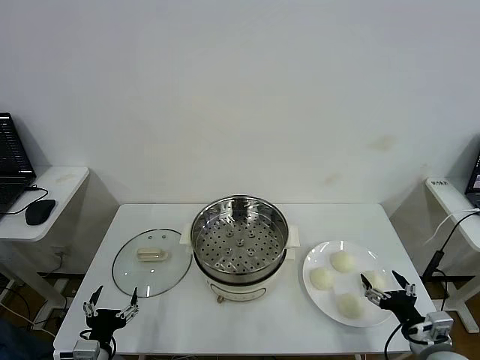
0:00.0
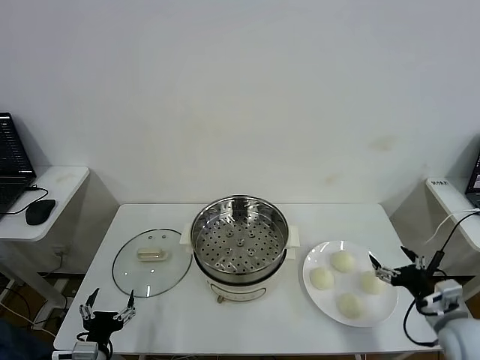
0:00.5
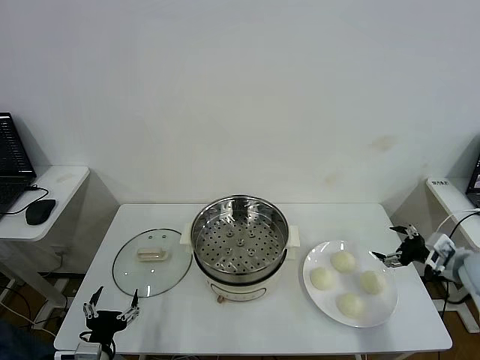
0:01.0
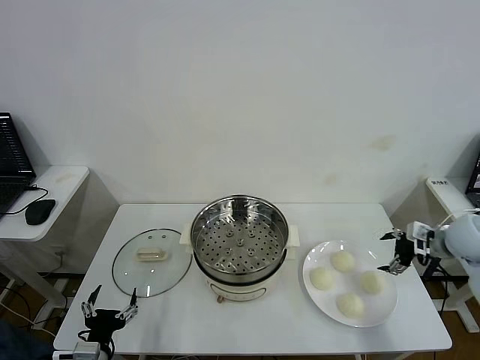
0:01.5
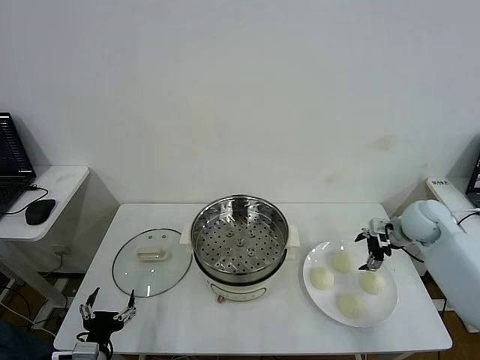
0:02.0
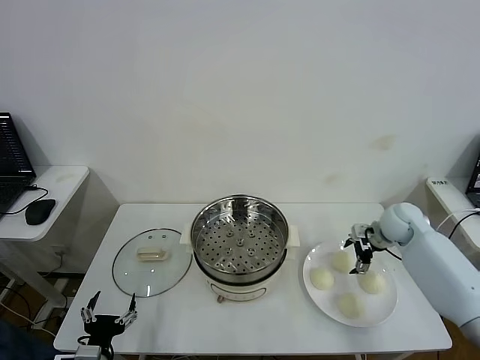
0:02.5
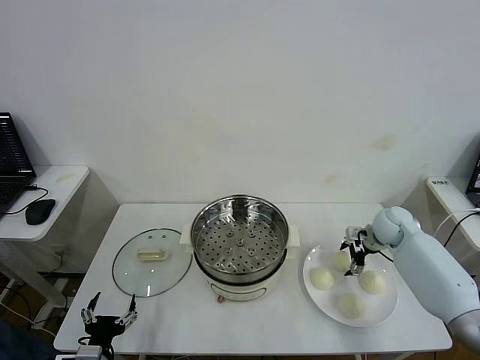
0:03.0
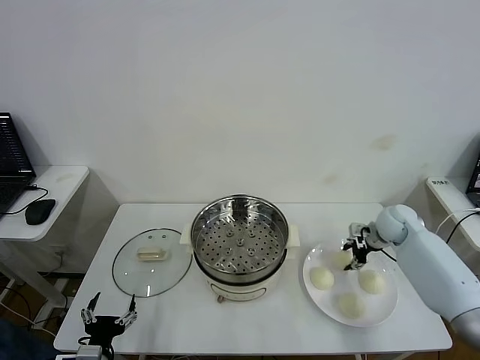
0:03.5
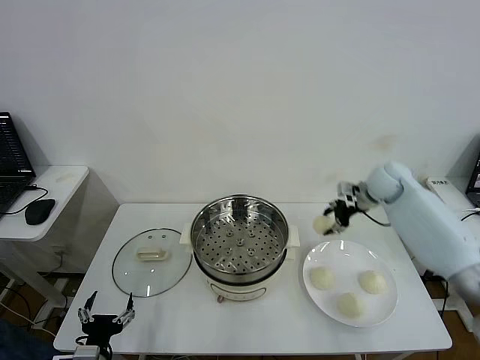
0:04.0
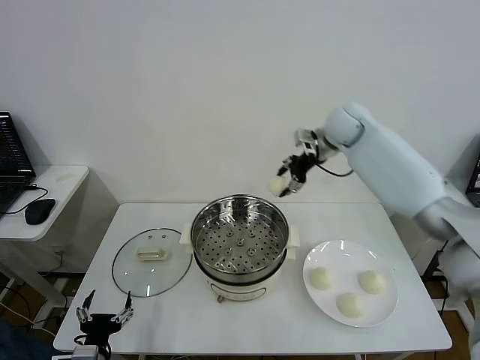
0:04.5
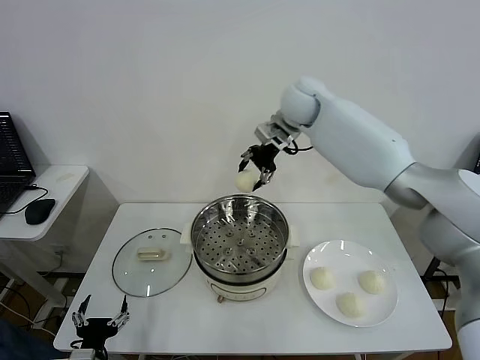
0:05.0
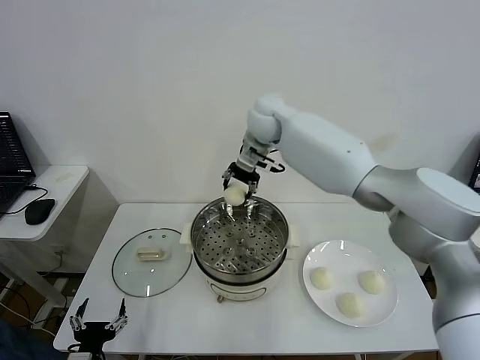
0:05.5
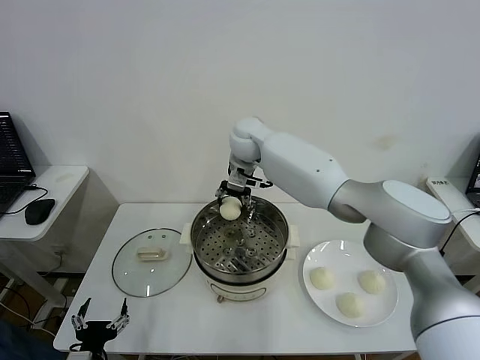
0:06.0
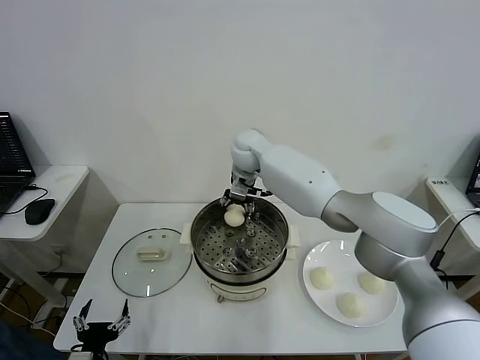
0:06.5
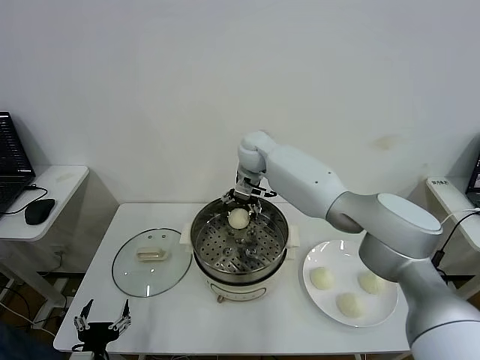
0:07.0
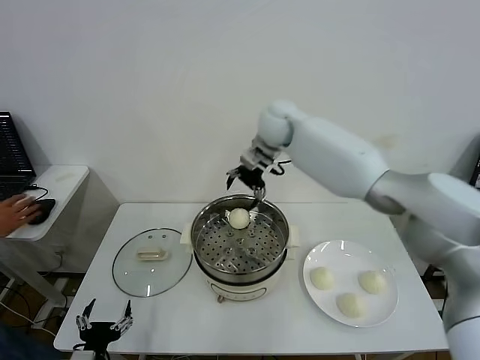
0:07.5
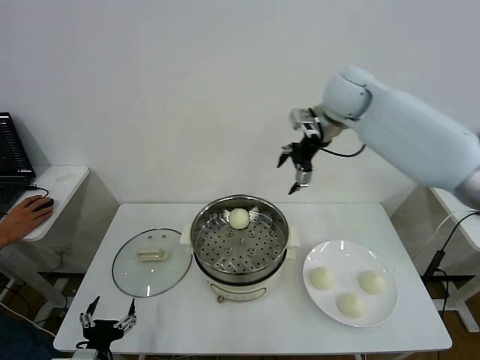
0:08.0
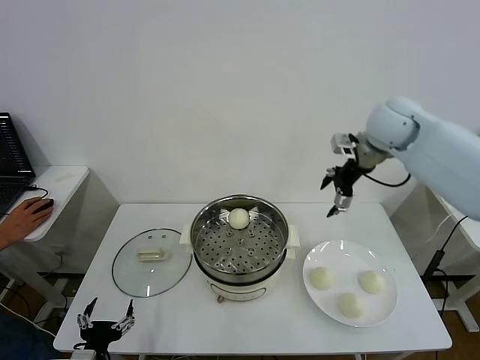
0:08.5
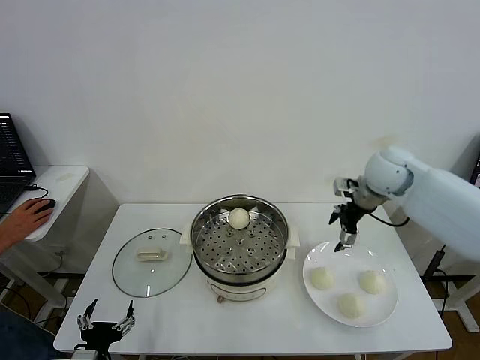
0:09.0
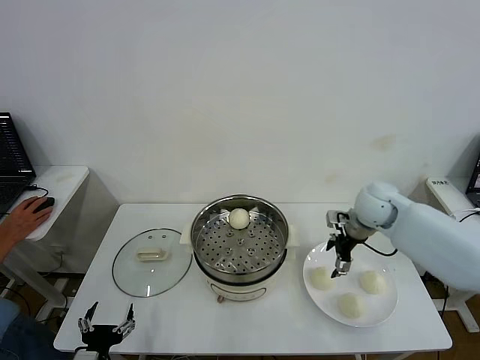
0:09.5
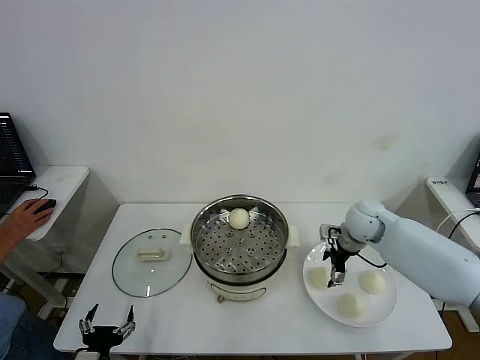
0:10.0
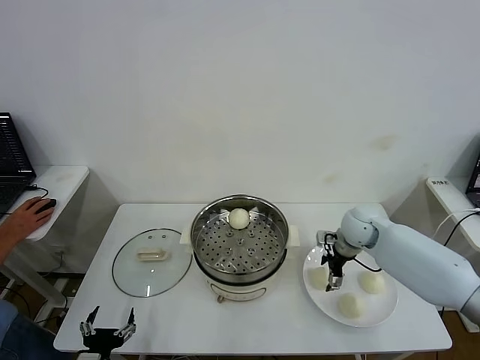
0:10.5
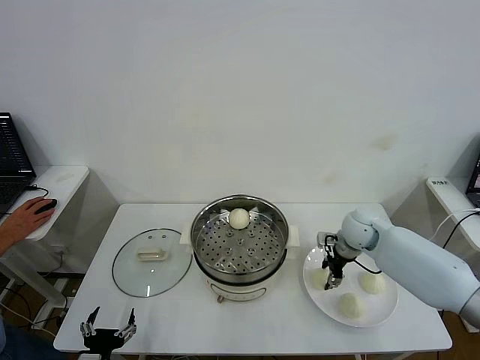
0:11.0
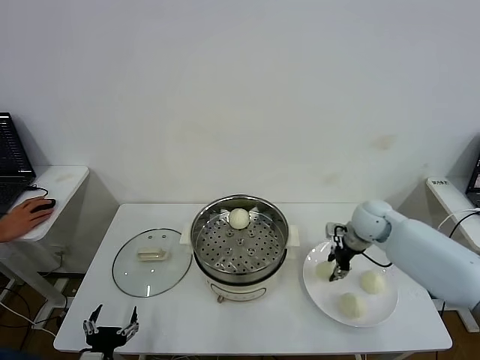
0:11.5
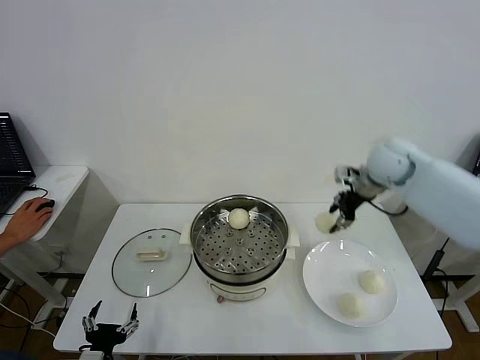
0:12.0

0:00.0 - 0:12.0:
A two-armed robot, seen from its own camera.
Step, 0:00.0 - 0:03.0: Grasp the baozi in the plate with right gripper.
Step, 0:03.5 - 0:06.5: Place the baozi on the steamer with right gripper.
Step, 0:07.0 - 0:10.5: Grasp the baozi in the plate with right gripper.
0:02.0 - 0:04.0: The right gripper heads forward, upward and to the left, covering roughly 15 cm, and closes its fingers.
0:04.0 - 0:06.0: The right gripper travels to the left by roughly 30 cm.
0:06.0 - 0:08.0: The right gripper goes roughly 25 cm to the right and upward, and opens.
0:08.0 - 0:10.0: The right gripper heads downward, covering about 25 cm.
0:10.0 - 0:12.0: The right gripper is displaced upward by about 20 cm, and closes.

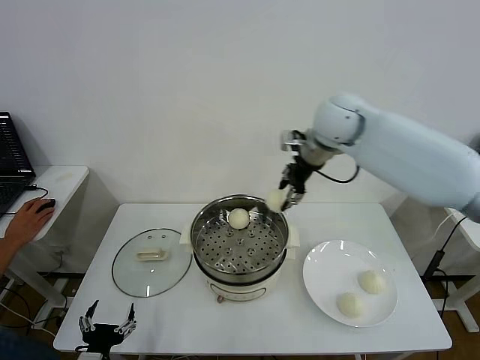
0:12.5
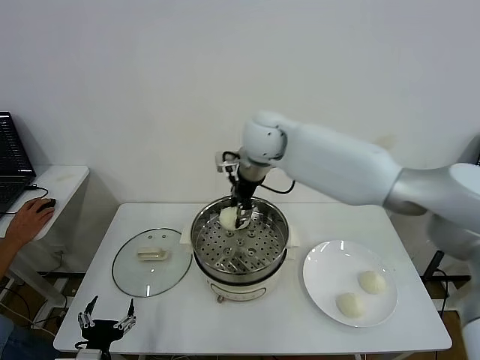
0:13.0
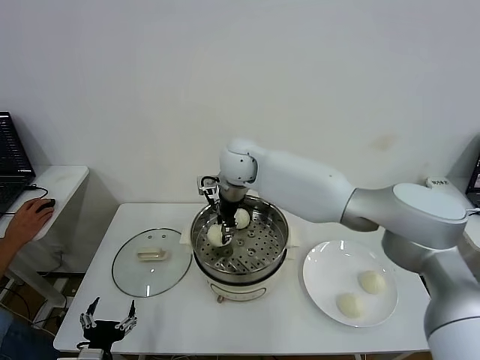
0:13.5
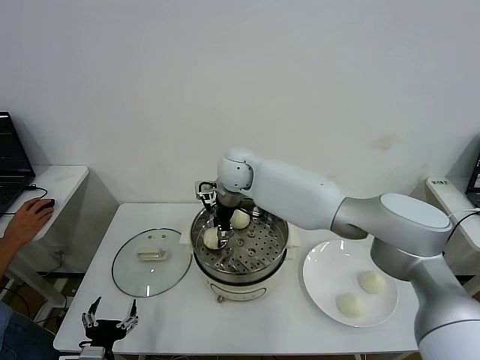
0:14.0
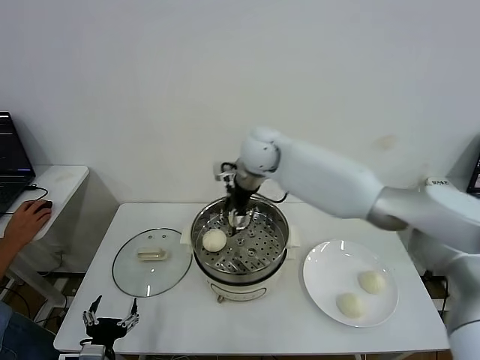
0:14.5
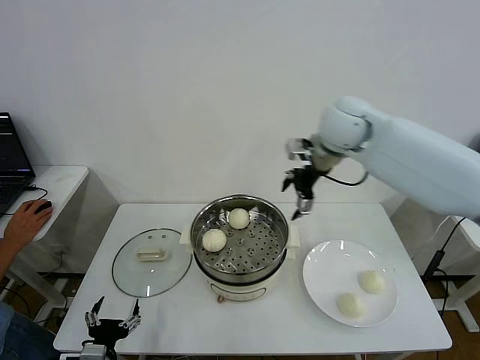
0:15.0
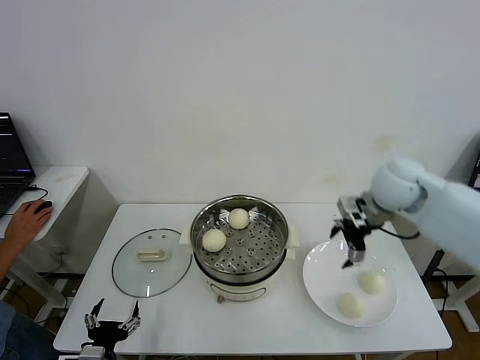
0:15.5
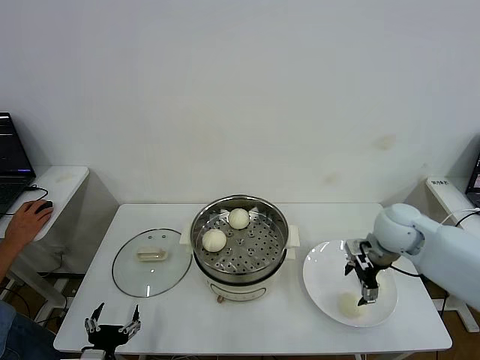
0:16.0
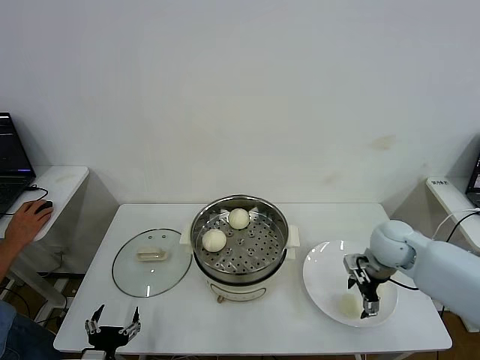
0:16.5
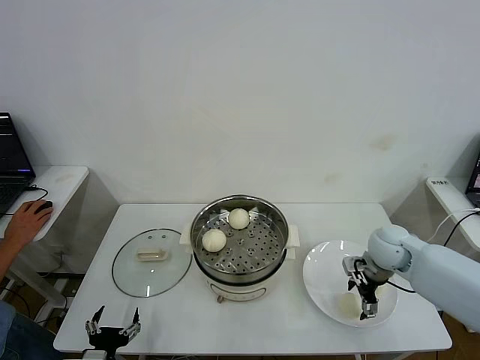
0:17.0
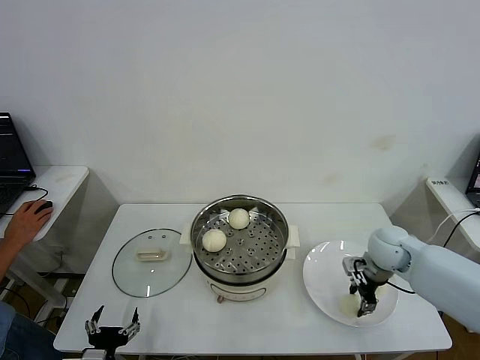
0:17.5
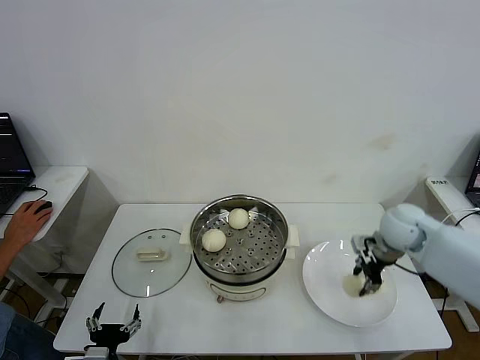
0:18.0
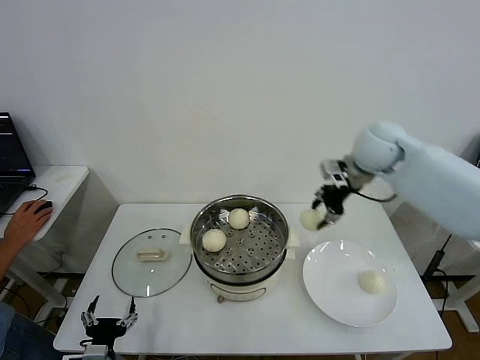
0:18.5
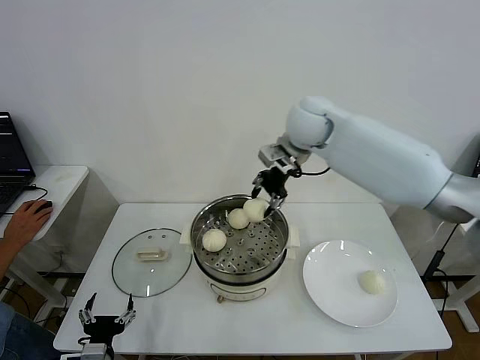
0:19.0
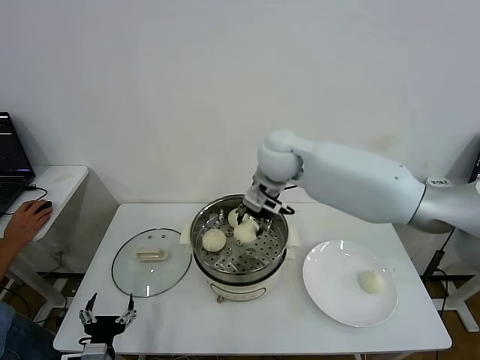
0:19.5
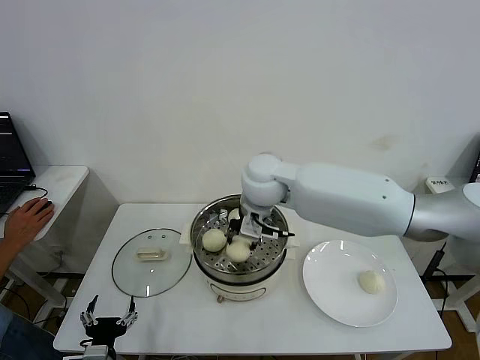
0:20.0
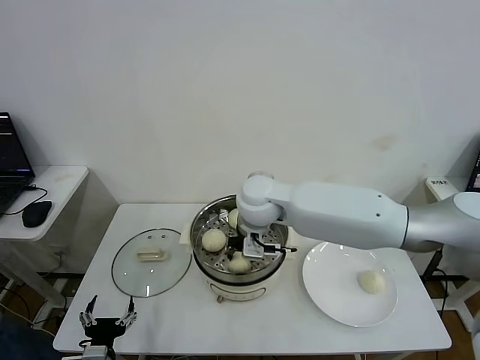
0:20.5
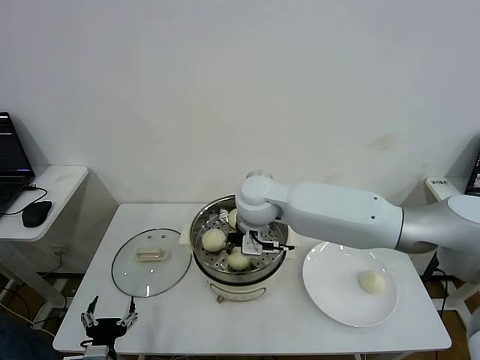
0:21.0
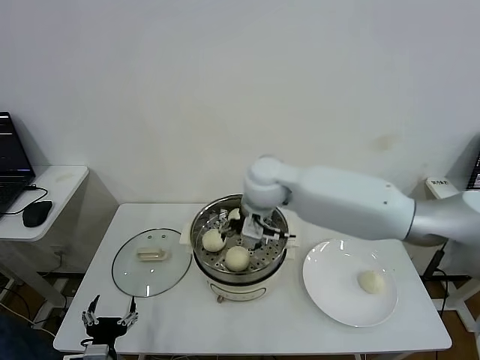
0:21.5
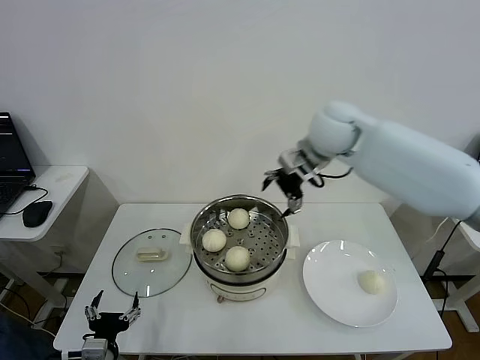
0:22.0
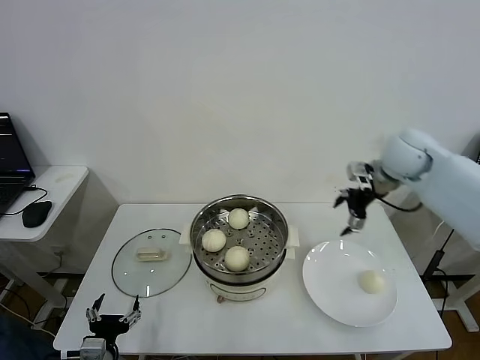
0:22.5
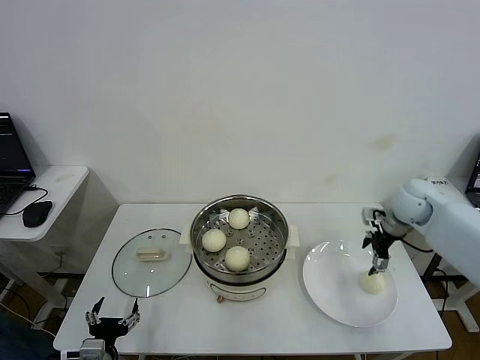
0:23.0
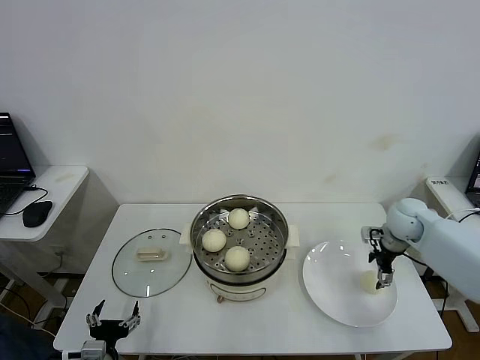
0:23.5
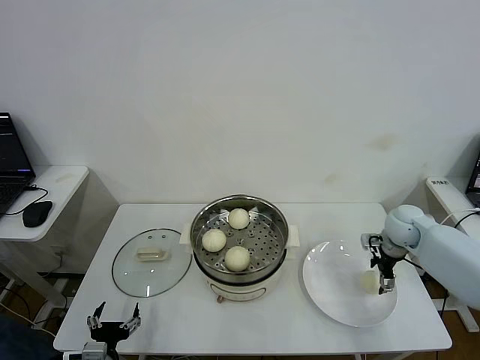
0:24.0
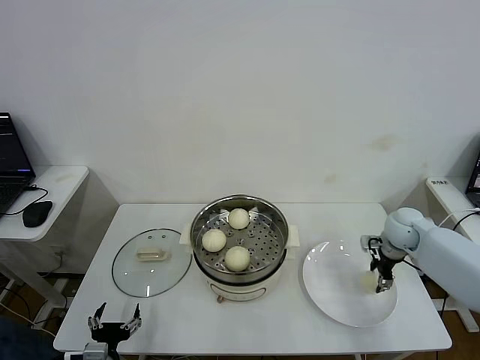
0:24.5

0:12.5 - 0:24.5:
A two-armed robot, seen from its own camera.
Step, 0:12.5 - 0:14.0: Place the baozi on the steamer with right gripper.
Step, 0:14.5 - 0:17.0: Grasp the baozi in the plate with right gripper.
Step, 0:17.5 - 0:21.0: Place the baozi on the steamer with right gripper.
Step, 0:21.5 - 0:24.5: Grasp the baozi in the plate with right gripper.
0:12.5 - 0:14.5: The right gripper moves to the left, some 5 cm, and opens up.
0:14.5 - 0:16.5: The right gripper travels to the right, downward and backward by some 35 cm.
0:16.5 - 0:18.5: The right gripper is displaced upward and forward by about 25 cm, and closes.
0:18.5 - 0:20.5: The right gripper travels to the left by about 20 cm.
0:20.5 - 0:22.5: The right gripper travels to the right by approximately 30 cm, and opens its fingers.
0:22.5 - 0:24.5: The right gripper shifts some 20 cm downward, and closes its fingers.

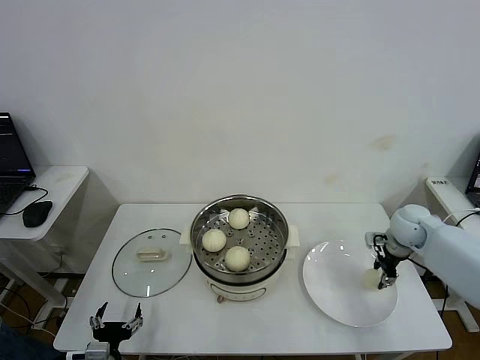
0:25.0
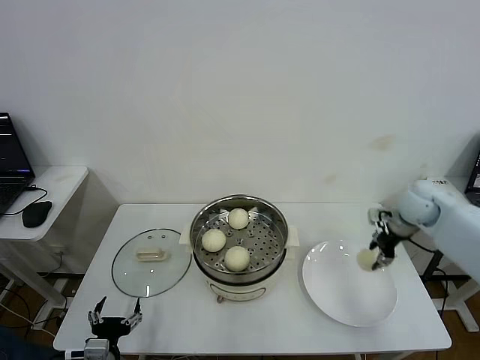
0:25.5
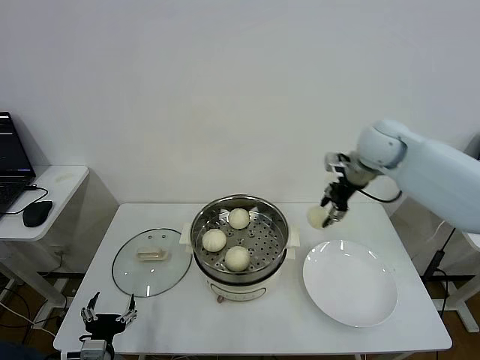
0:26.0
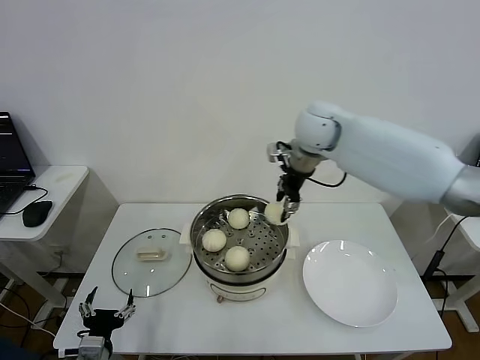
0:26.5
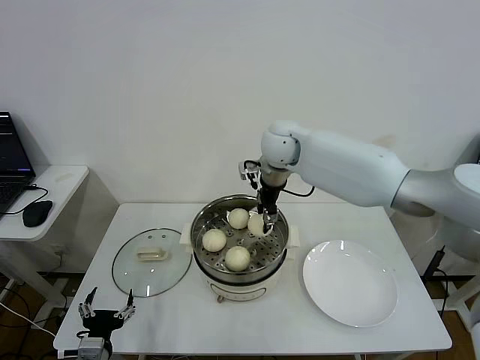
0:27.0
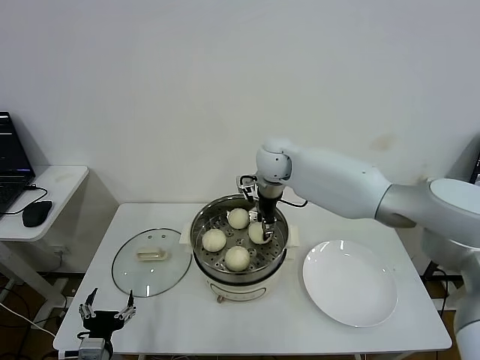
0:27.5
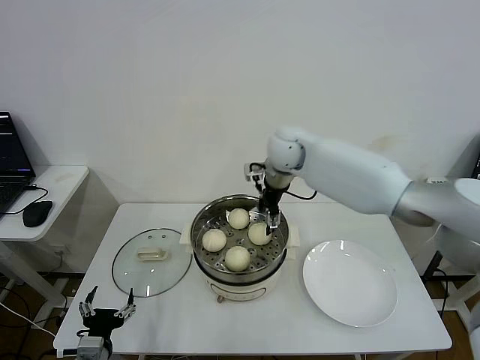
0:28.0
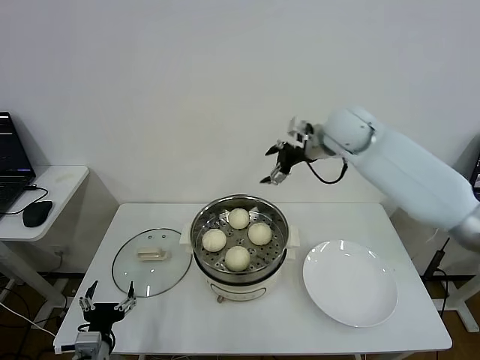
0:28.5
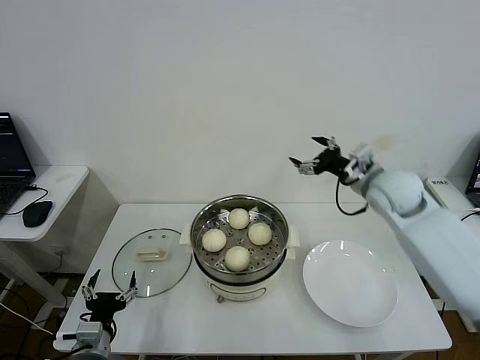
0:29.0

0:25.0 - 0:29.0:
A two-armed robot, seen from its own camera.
Step, 0:25.0 - 0:27.5: Place the baozi on the steamer with right gripper.
0:25.0 - 0:27.0: The right gripper travels to the left and upward by about 35 cm.
0:27.0 - 0:29.0: The right gripper is displaced to the right and backward by about 25 cm, and opens its fingers.
